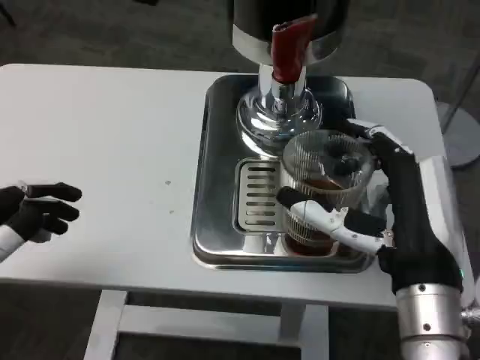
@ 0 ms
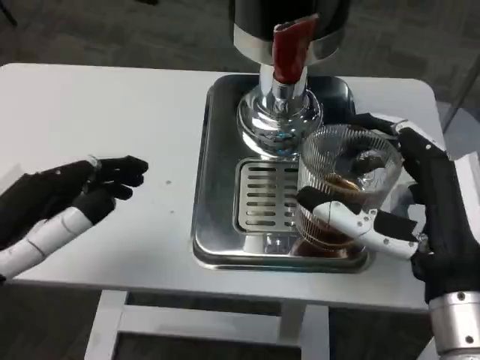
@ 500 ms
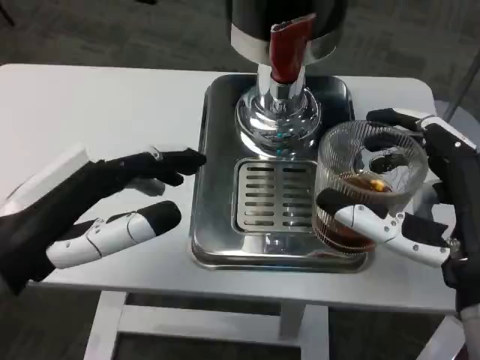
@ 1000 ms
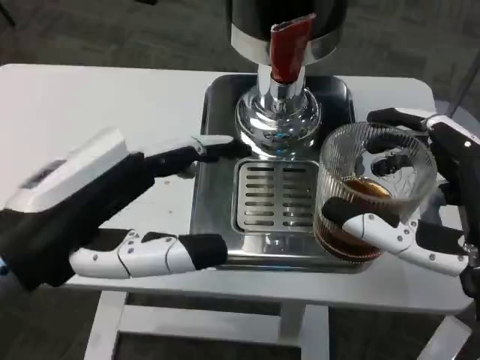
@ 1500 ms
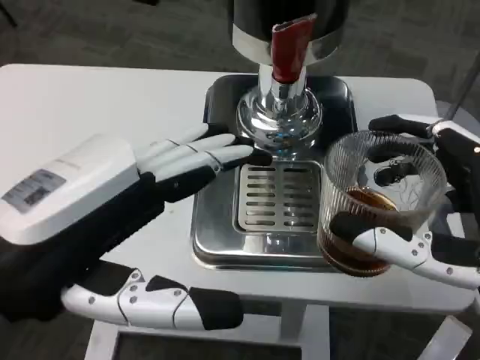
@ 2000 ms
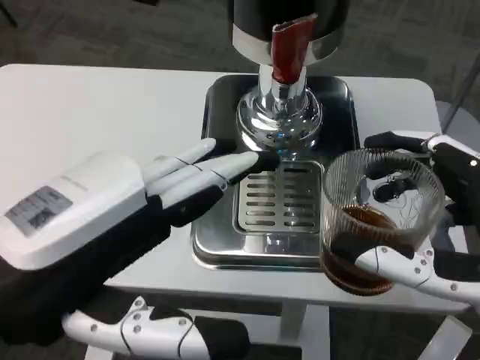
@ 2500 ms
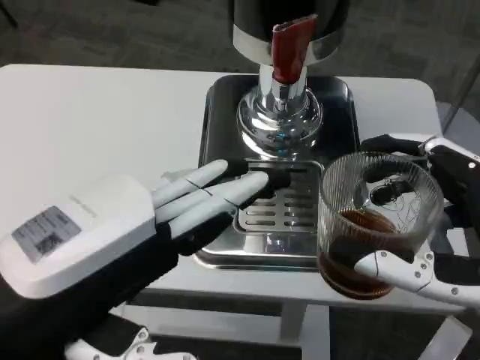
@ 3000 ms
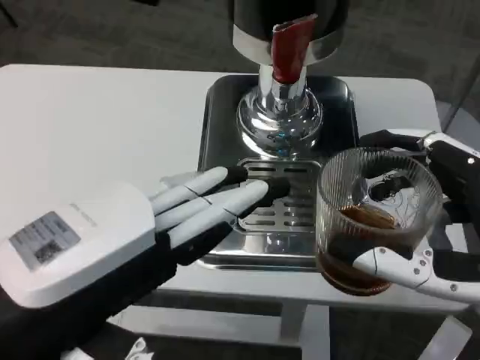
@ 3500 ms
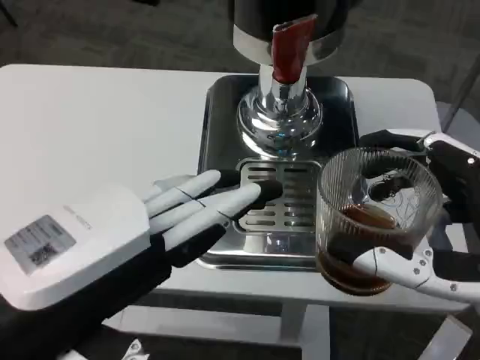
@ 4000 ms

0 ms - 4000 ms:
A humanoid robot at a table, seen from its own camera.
Task of the whole recording: Grasp the cup under the faucet to collect the drink, then remove the cup.
0 ms - 2000 ms: The right hand moves backward and to the right, roughly 10 cm; the left hand shifts roughly 10 cm to the right and upward.

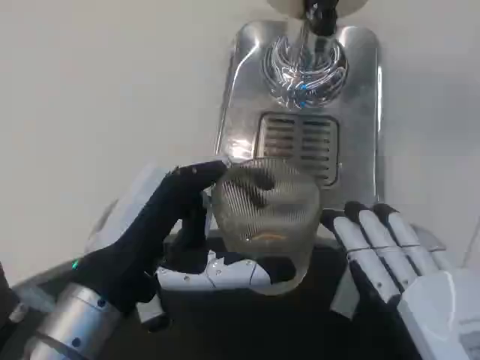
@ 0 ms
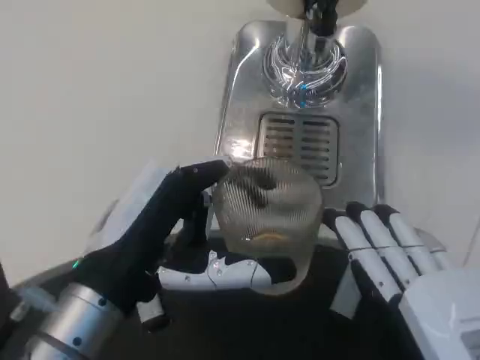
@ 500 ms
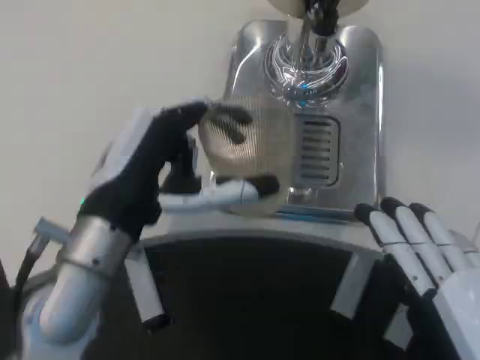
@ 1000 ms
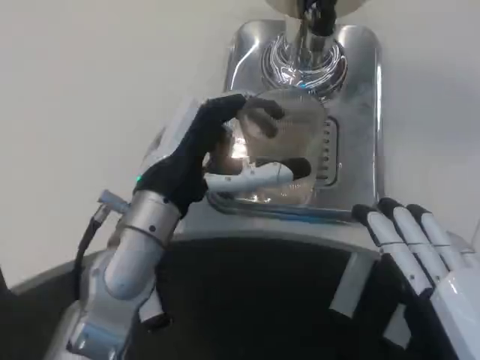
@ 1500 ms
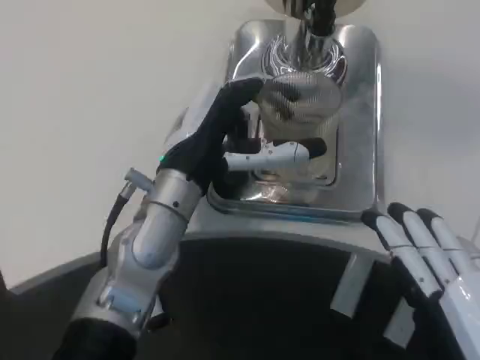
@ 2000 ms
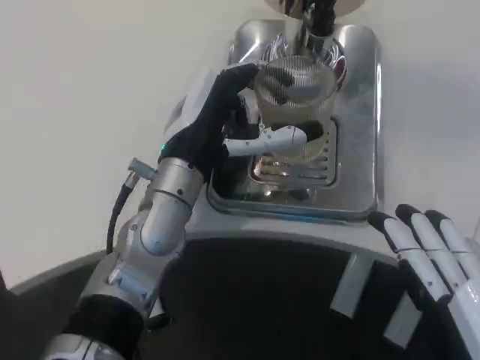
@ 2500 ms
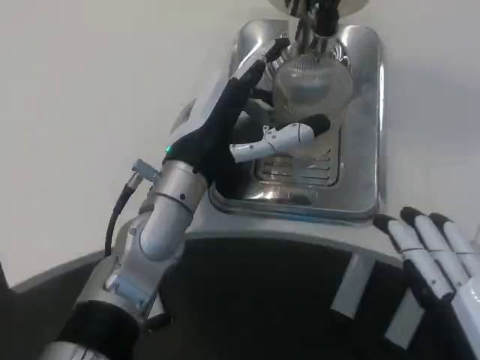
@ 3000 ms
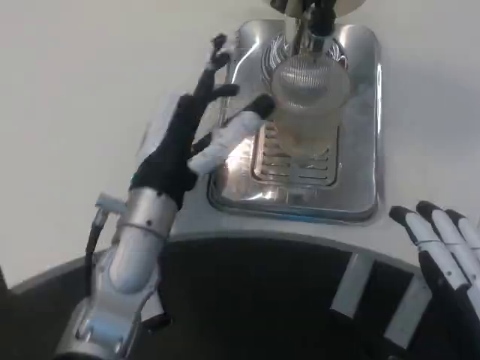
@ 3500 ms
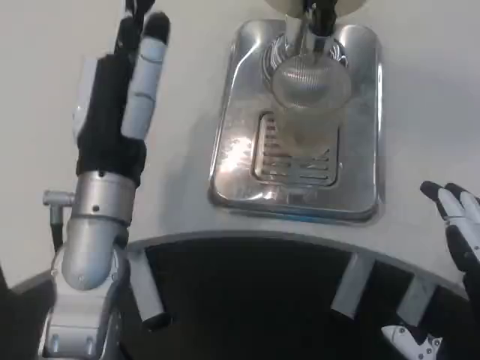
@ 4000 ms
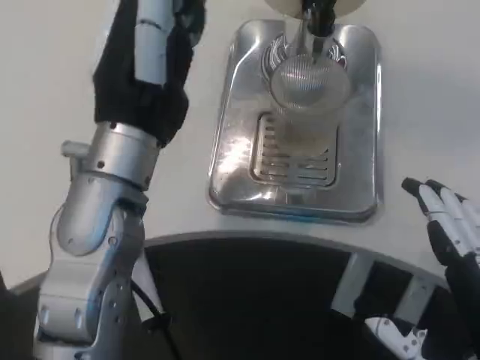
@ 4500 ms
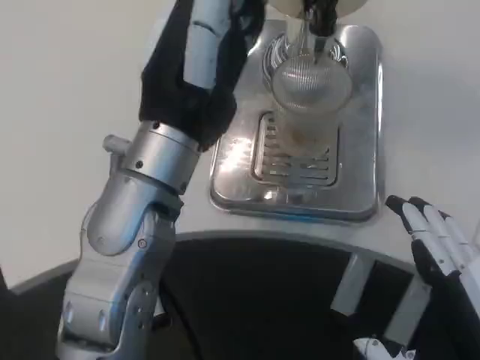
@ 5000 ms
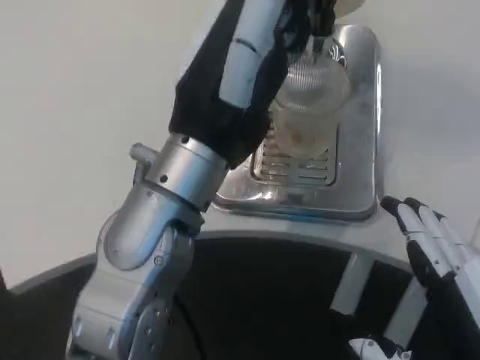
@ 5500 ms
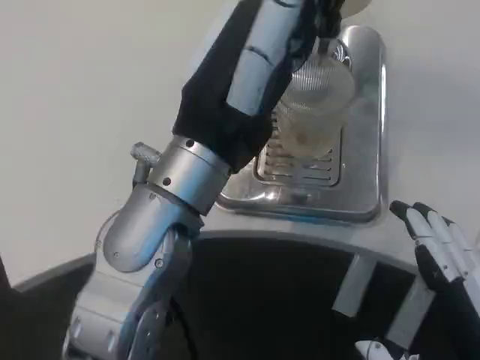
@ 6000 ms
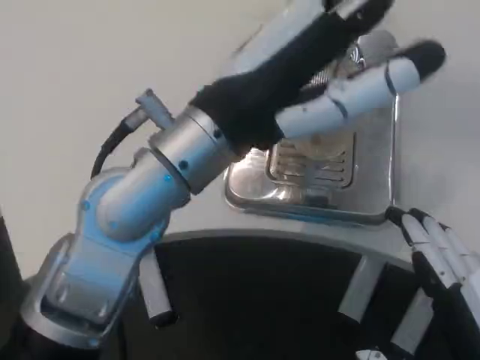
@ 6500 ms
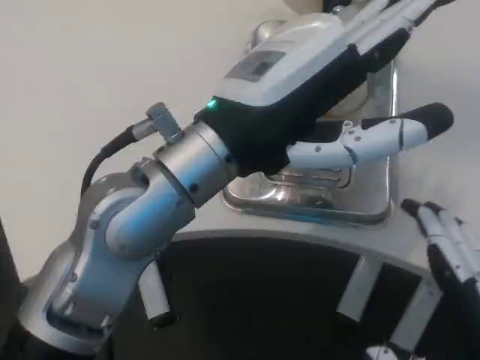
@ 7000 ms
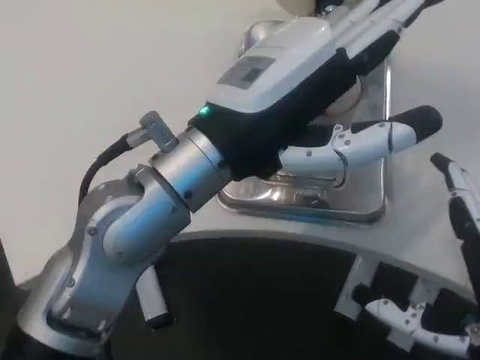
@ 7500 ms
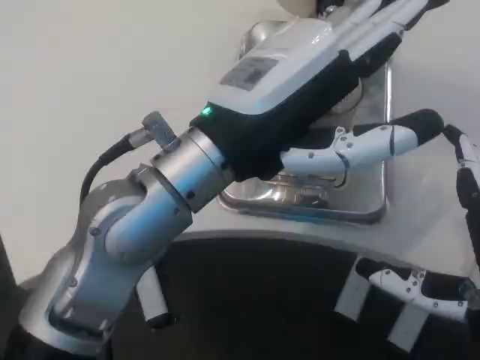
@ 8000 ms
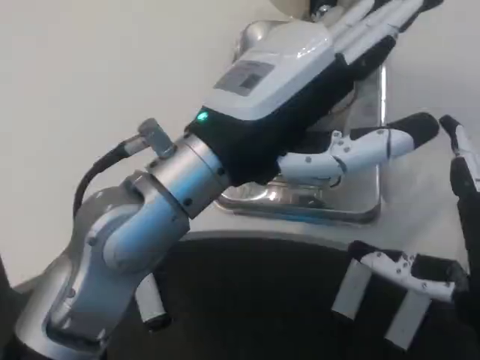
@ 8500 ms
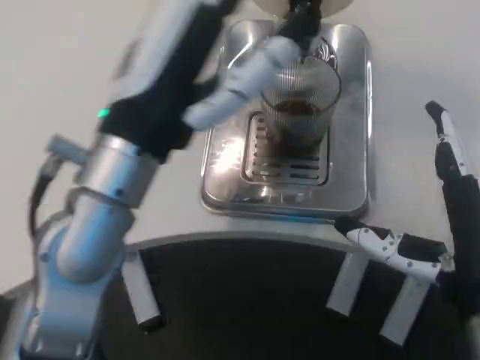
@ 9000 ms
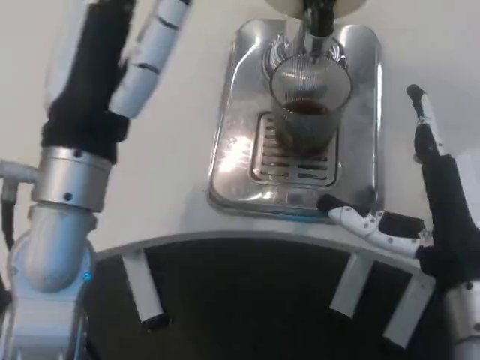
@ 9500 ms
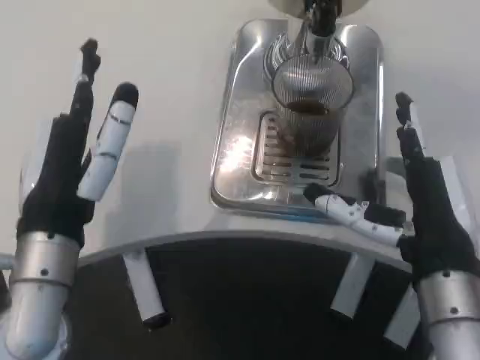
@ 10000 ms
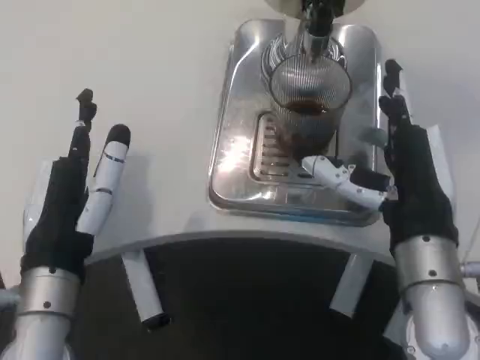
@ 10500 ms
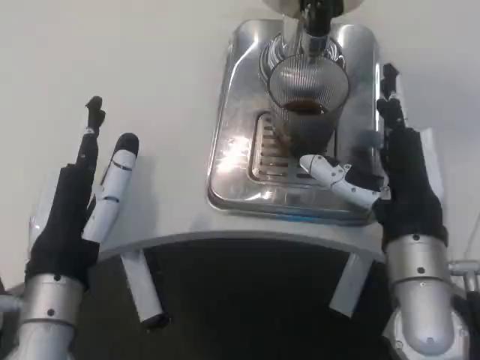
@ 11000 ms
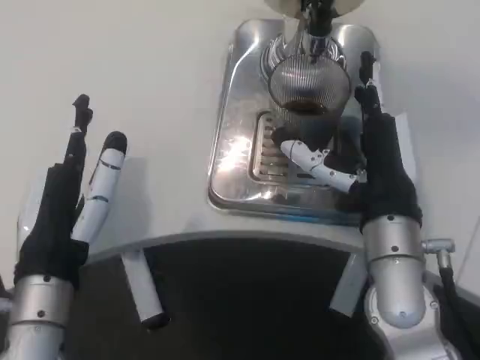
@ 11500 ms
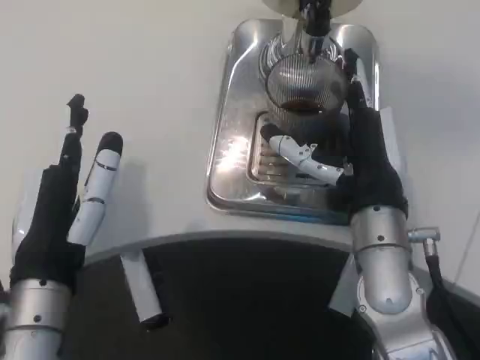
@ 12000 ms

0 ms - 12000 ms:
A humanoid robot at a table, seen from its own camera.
Task of the whole recording: Grasp the cup under the faucet to collect the drink, then remove the cup.
0 ms - 2000 ms: The left hand goes approximately 15 cm forward.
2000 ms - 4000 ms: The left hand changes place by approximately 5 cm.
4000 ms - 6000 ms: The left hand travels to the right and upward by roughly 10 cm.
6000 ms - 8000 ms: The right hand heads forward, covering some 5 cm.
8000 ms - 10000 ms: The right hand is displaced forward by about 10 cm; the left hand shifts roughly 15 cm downward and to the left.
10000 ms - 12000 ms: The right hand heads forward, covering some 5 cm.

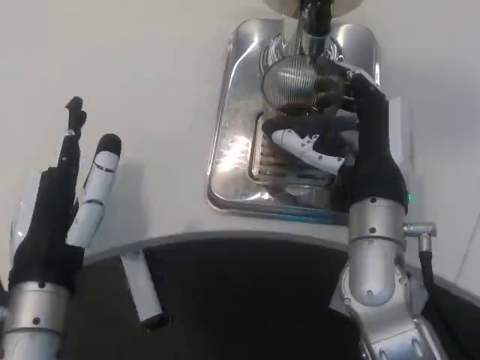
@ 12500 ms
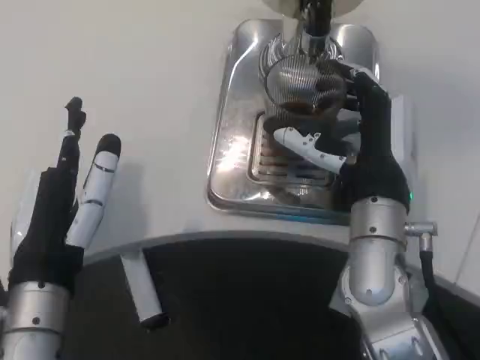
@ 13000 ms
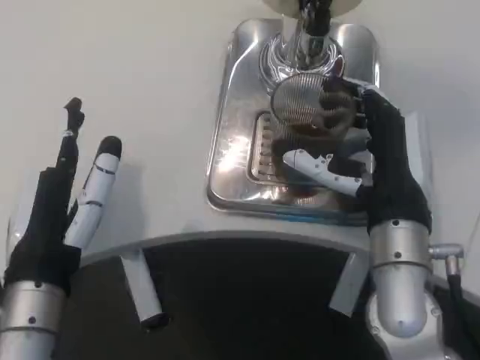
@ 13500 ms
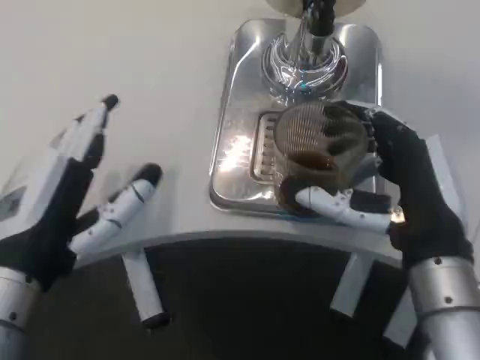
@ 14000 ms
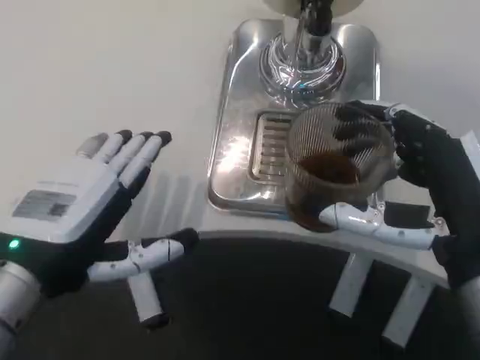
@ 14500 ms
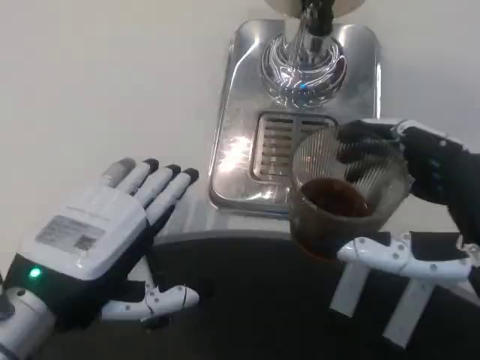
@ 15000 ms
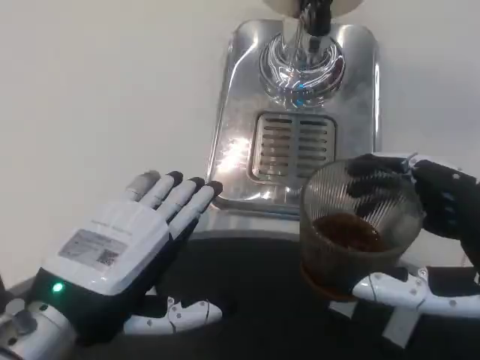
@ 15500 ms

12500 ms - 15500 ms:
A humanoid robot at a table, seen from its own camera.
Task of the whole recording: Grasp the cup under the faucet to collect the drink, then remove the cup.
12500 ms - 14000 ms: The right hand moves backward, approximately 10 cm.
14000 ms - 15500 ms: The right hand goes approximately 10 cm backward and to the right.

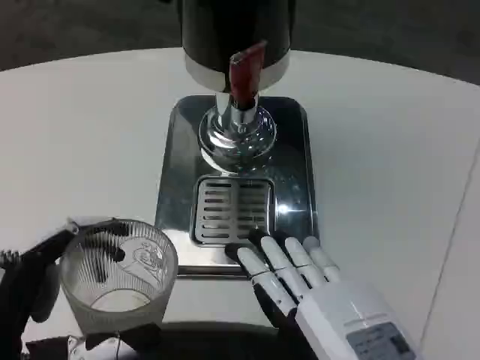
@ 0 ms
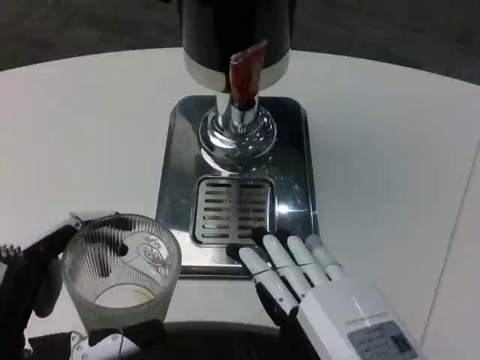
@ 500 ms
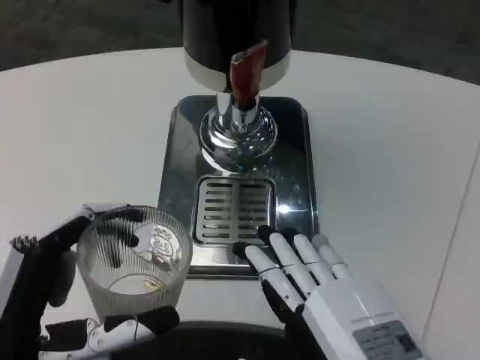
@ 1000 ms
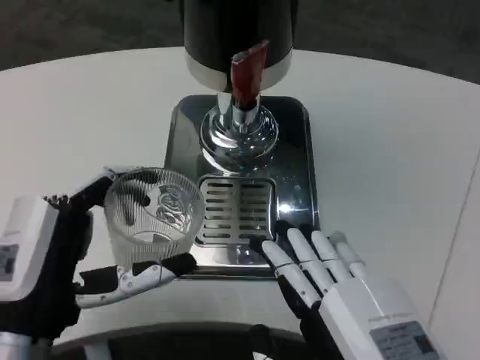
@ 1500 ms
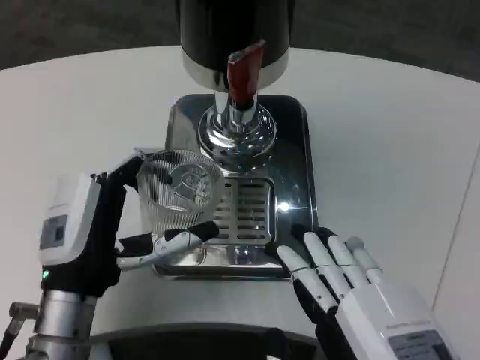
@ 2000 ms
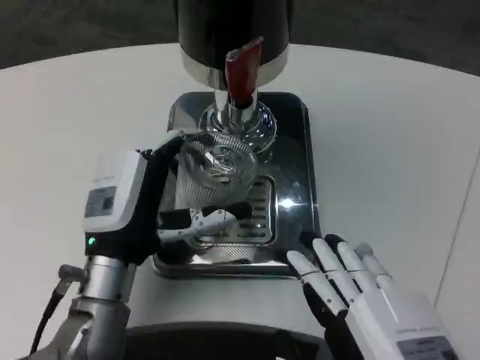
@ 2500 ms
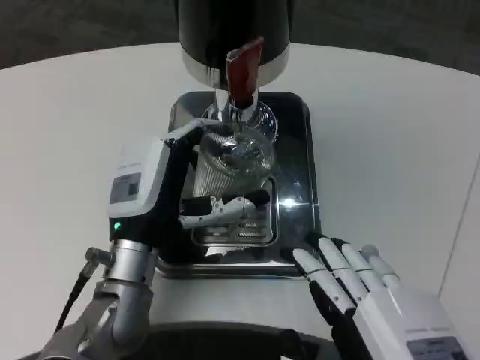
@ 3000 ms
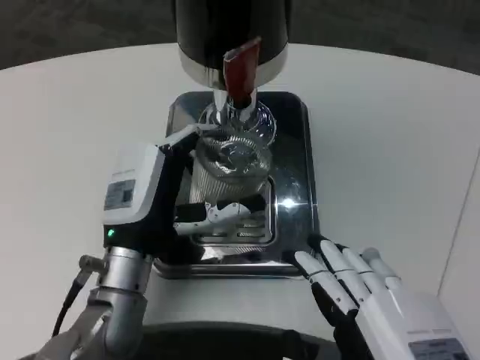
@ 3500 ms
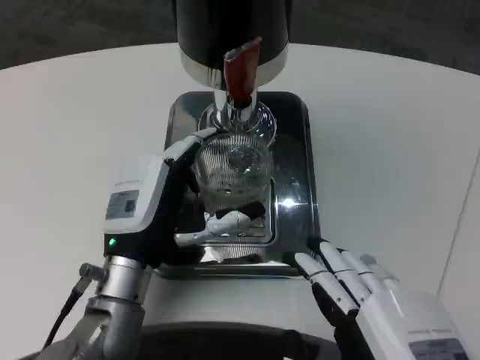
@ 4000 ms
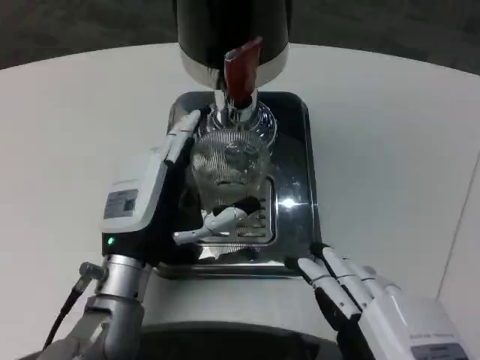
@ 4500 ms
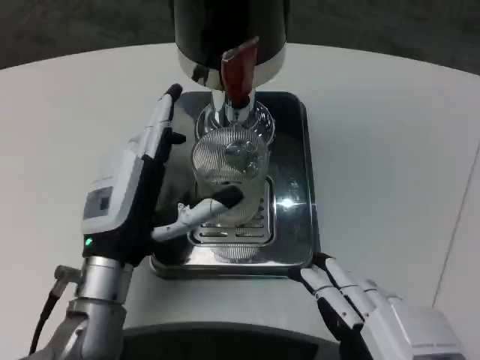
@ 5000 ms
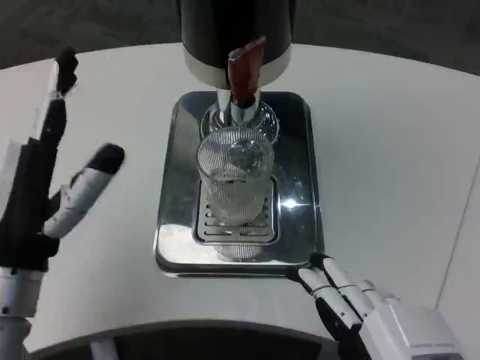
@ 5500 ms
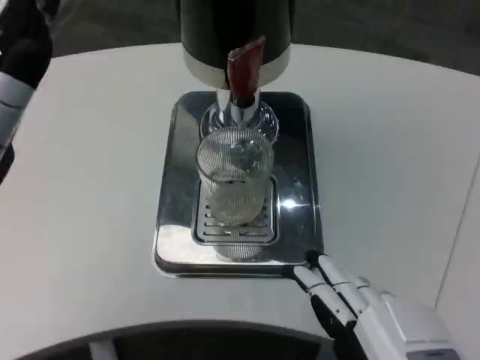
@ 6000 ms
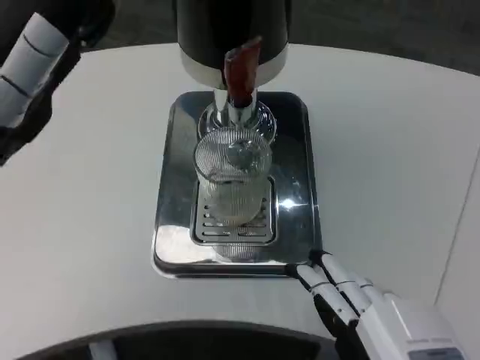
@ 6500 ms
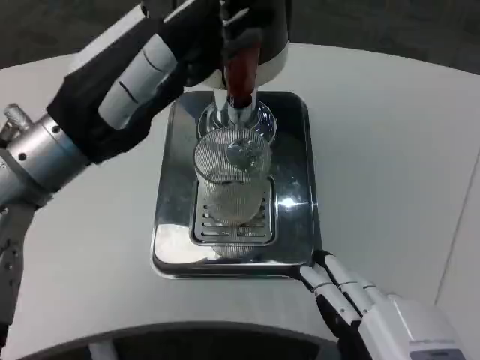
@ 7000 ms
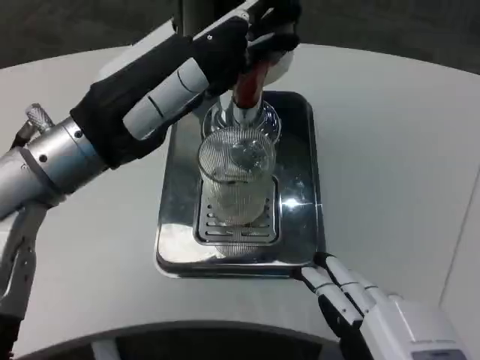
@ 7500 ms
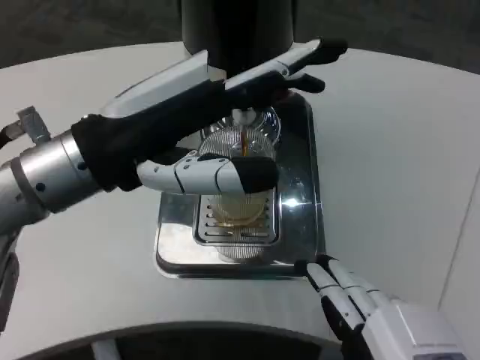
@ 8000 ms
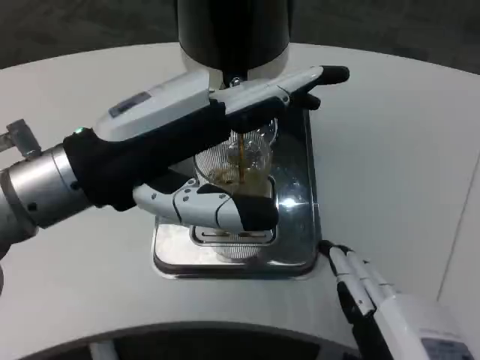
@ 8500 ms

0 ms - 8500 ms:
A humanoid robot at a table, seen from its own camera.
Task of the whole recording: Grasp the cup under the faucet to collect the drink, then remove the cup.
0 ms - 2000 ms: The left hand heads forward, covering some 15 cm.
2000 ms - 4000 ms: The left hand moves some 5 cm.
4000 ms - 6500 ms: The left hand is displaced upward and to the left by roughly 20 cm.
